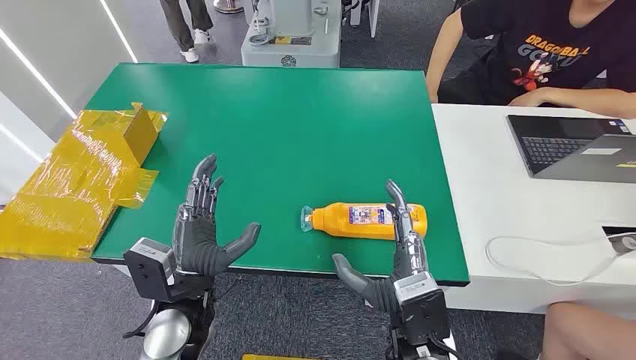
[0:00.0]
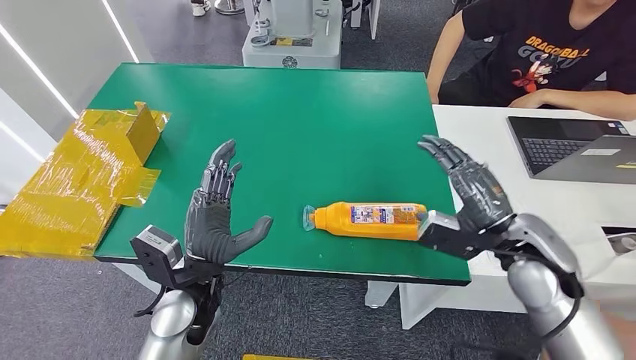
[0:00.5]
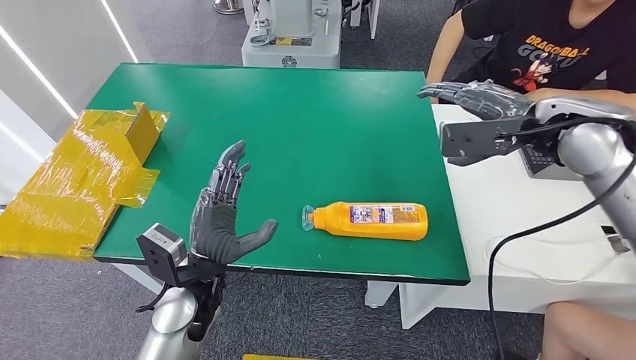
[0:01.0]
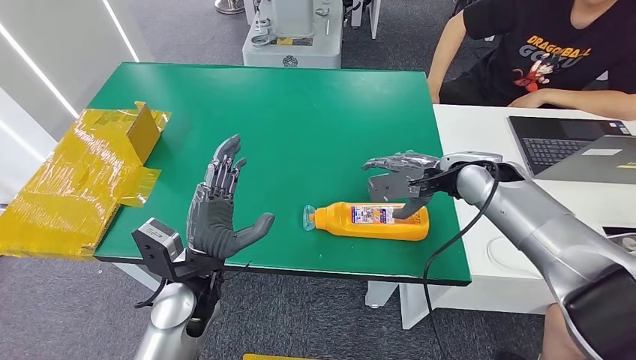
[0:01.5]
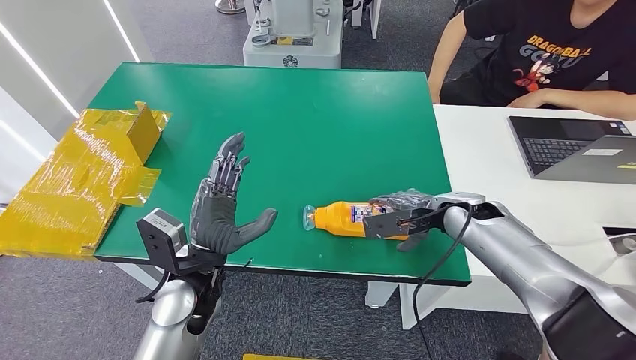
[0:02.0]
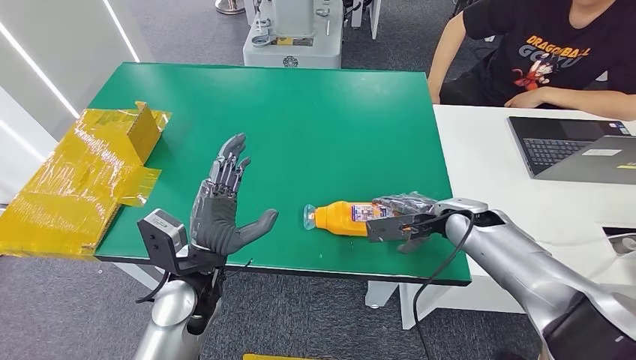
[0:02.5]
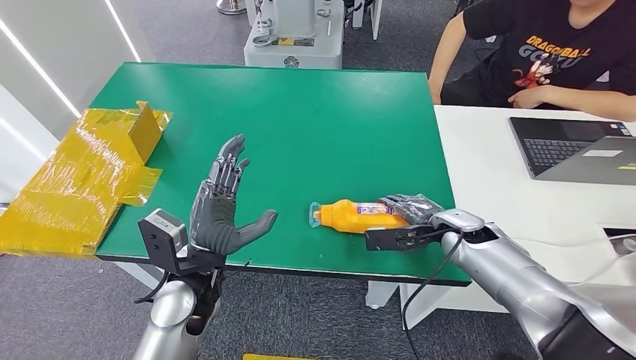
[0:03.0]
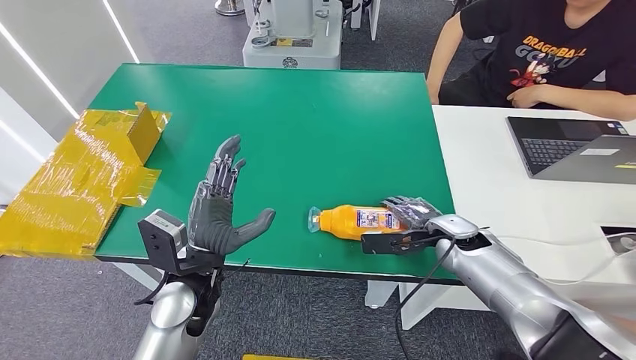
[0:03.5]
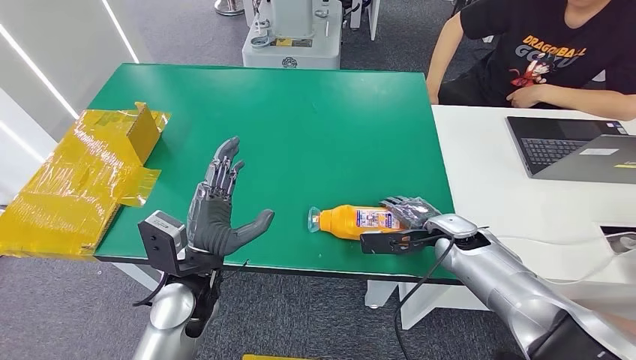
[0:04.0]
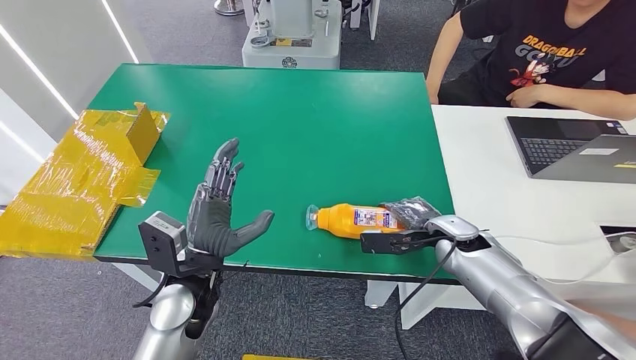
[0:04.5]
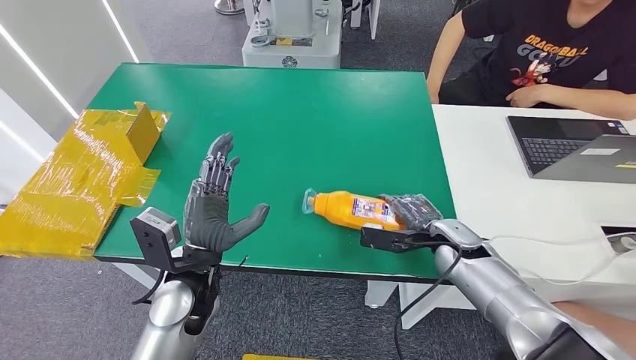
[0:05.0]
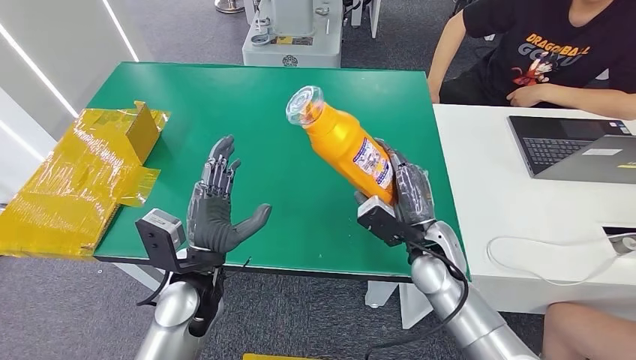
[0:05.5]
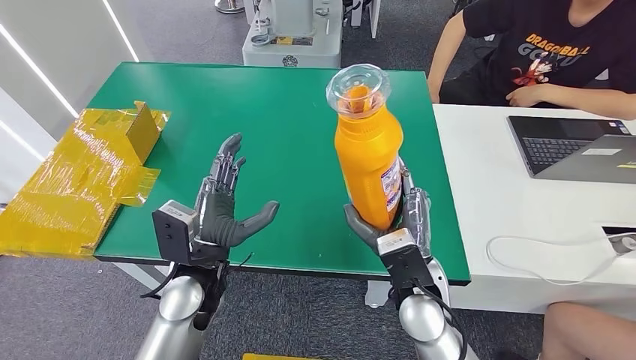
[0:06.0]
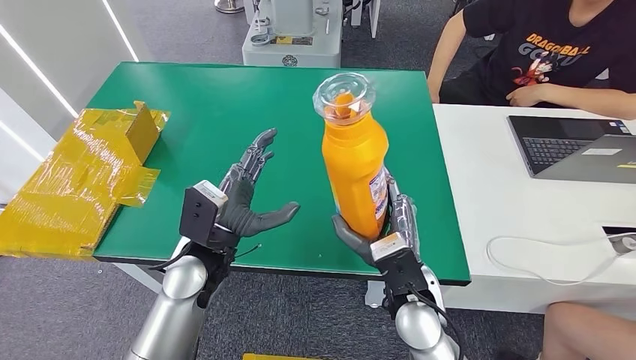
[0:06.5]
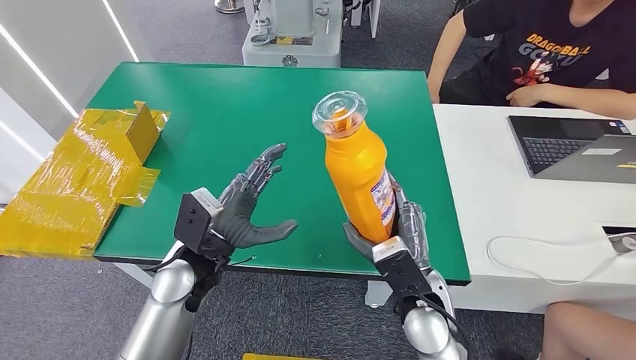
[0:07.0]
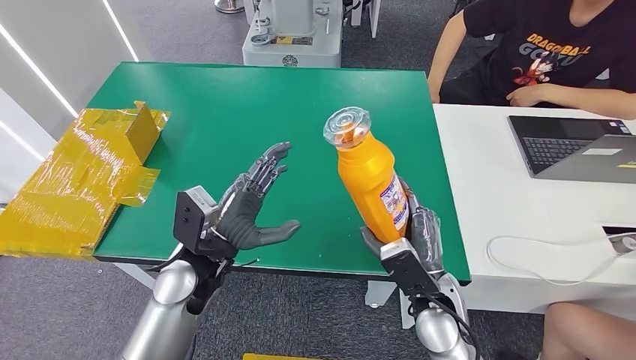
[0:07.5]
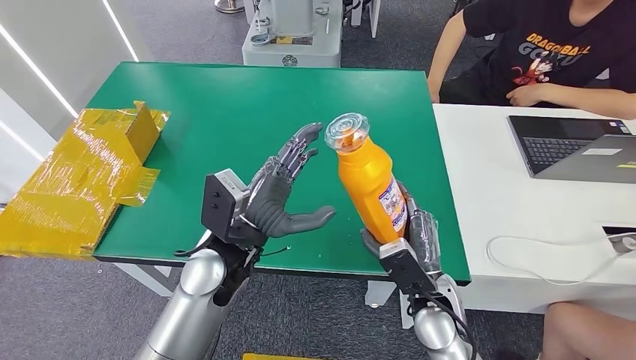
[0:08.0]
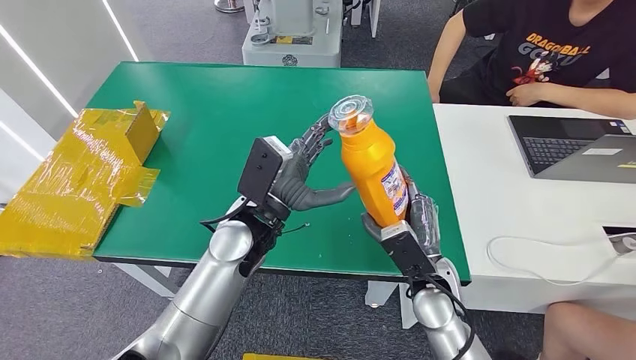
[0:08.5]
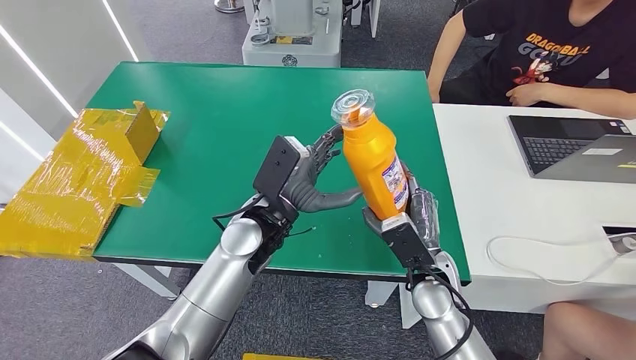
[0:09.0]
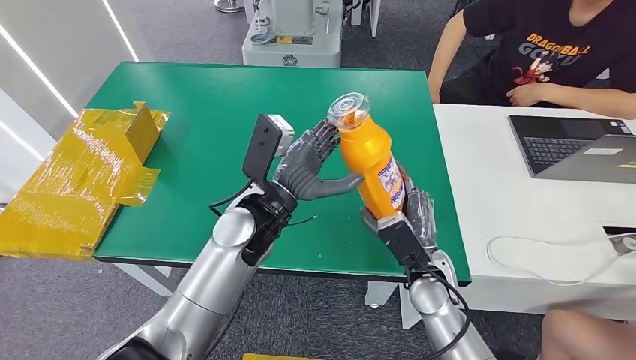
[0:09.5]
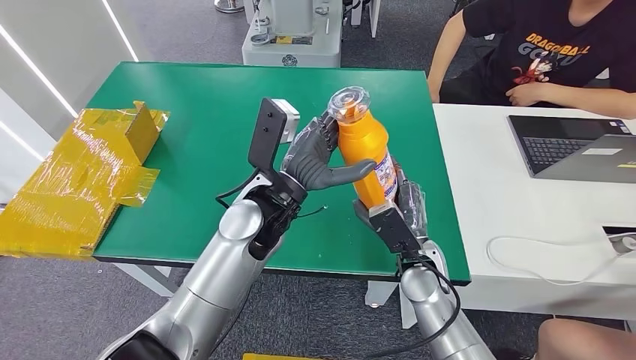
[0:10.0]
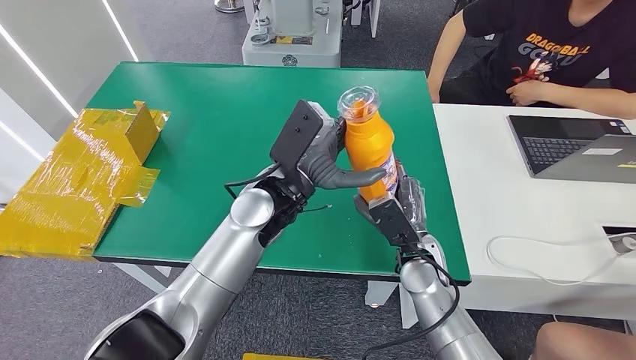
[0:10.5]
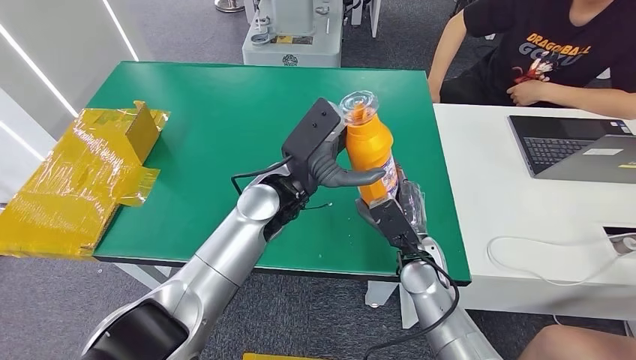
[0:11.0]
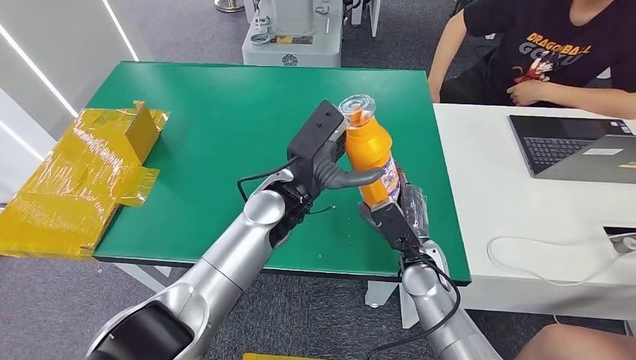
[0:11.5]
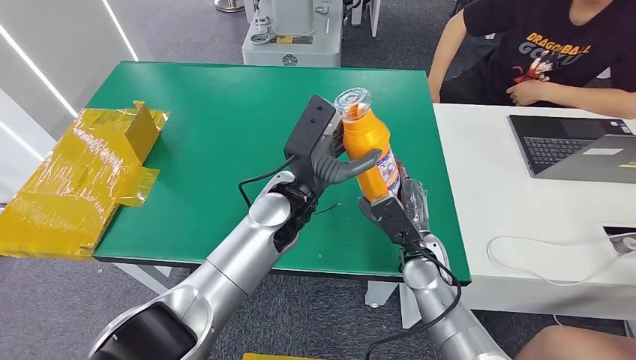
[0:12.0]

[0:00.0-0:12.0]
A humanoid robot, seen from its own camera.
Step, 0:00.0 to 0:05.5: Pick up the bottle from the table.
0:02.0 to 0:04.0: The right hand shifts roughly 5 cm downward.
0:04.0 to 0:06.0: The right hand travels to the left and backward by some 20 cm.
0:06.0 to 0:08.0: The left hand moves about 5 cm. Meanwhile the right hand travels downward by about 5 cm.
0:08.0 to 0:10.0: The hands both shift forward by approximately 5 cm.
0:10.0 to 0:12.0: There are only small adjustments of the hands.

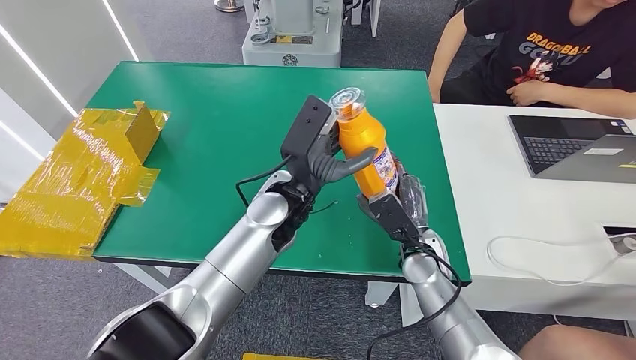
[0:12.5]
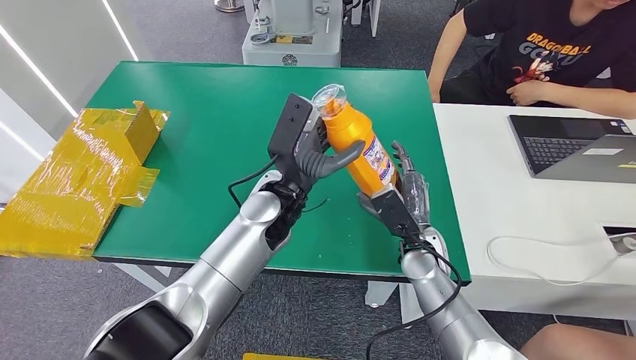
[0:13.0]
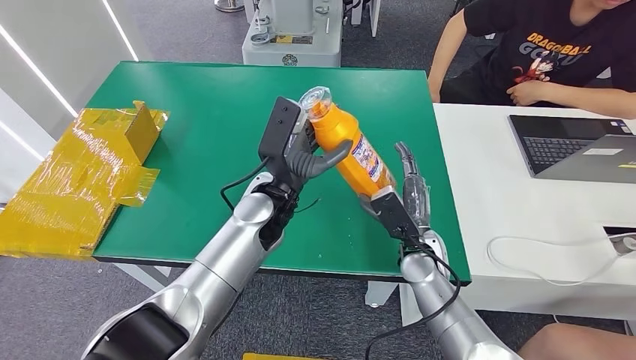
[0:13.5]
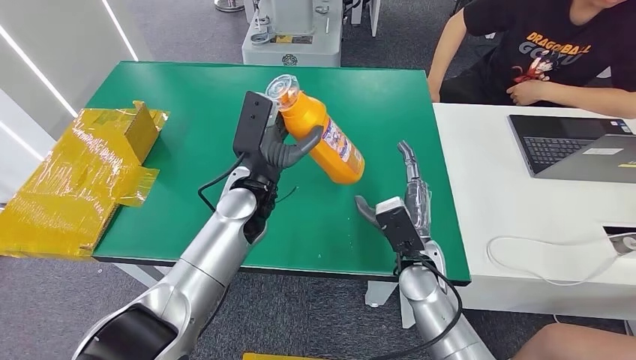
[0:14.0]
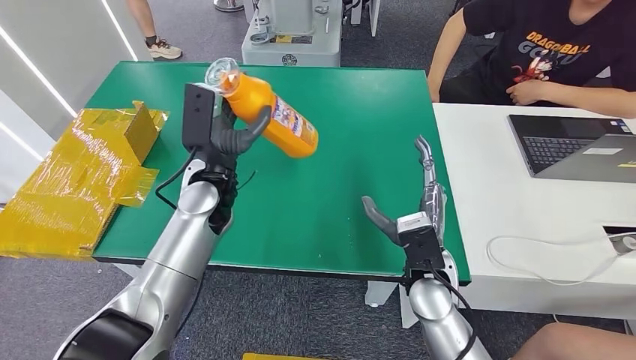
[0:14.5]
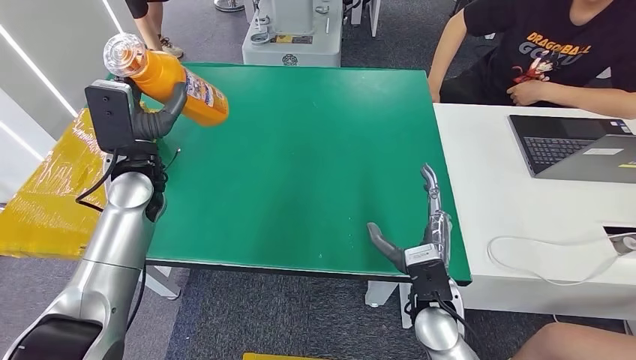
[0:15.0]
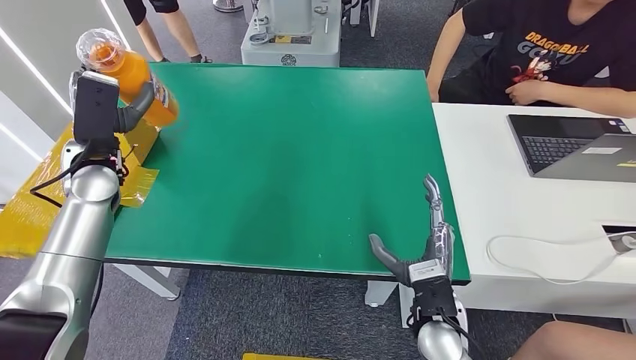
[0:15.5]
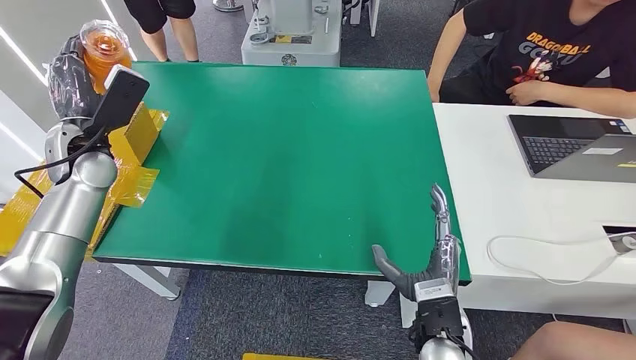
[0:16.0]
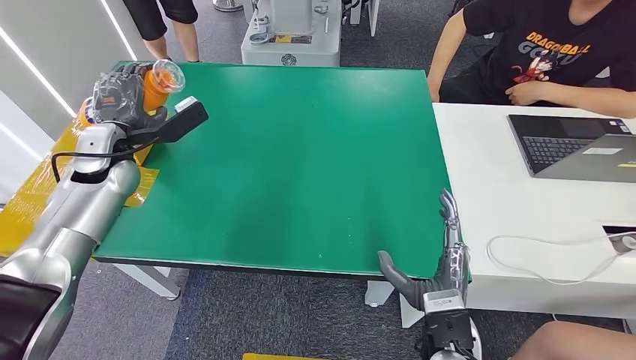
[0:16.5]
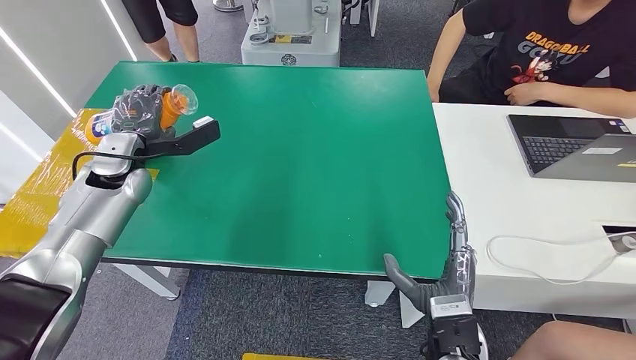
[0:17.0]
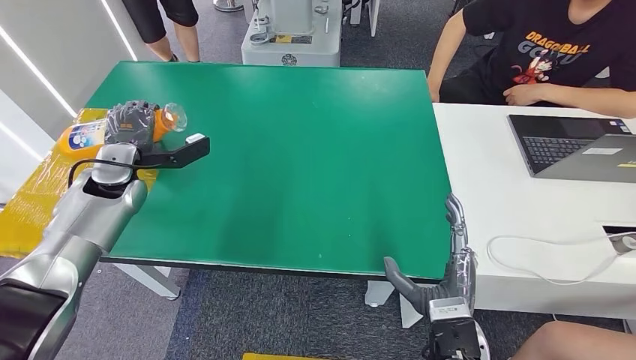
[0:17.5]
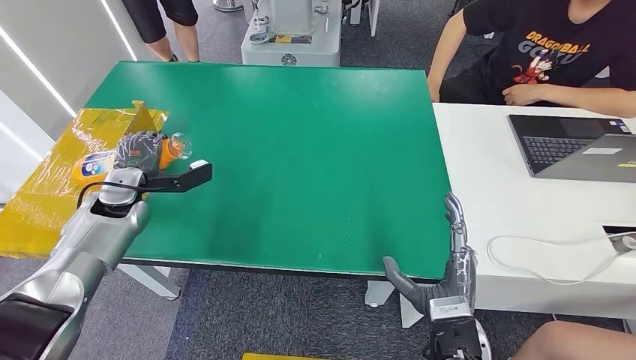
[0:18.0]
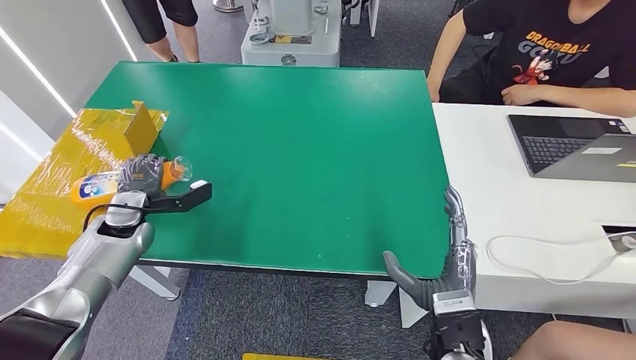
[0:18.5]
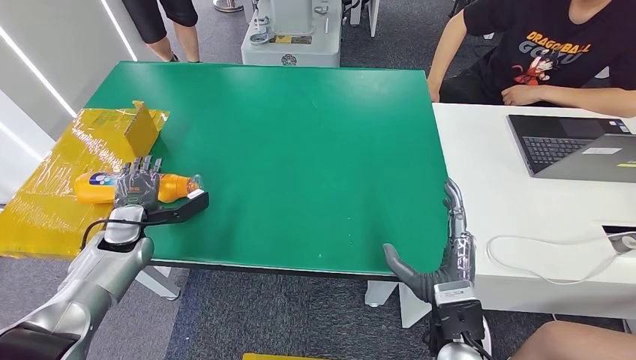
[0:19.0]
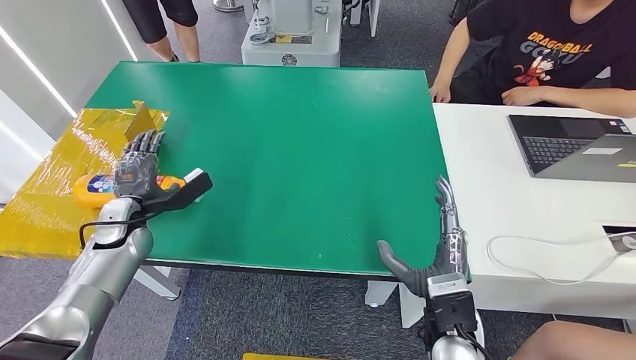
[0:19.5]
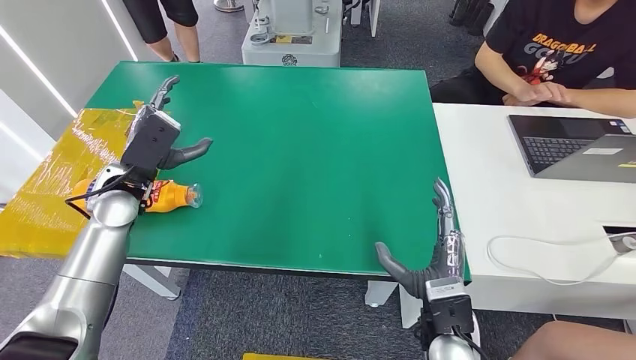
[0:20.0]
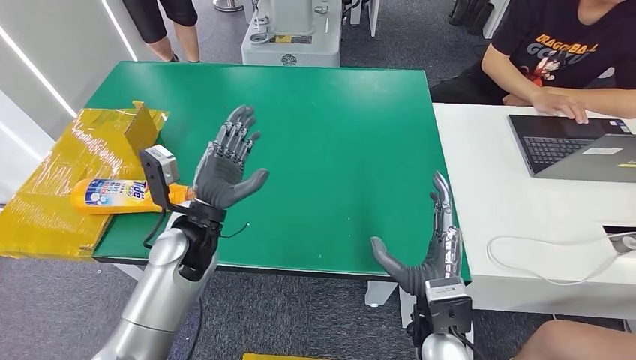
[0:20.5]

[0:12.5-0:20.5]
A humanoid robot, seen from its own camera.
Step, 0:12.5 to 0:20.5: Turn the bottle to the front side.
0:16.5 to 0:18.5: The left hand goes some 15 cm downward and backward.
0:18.5 to 0:20.5: The left hand is displaced to the right by about 20 cm.
